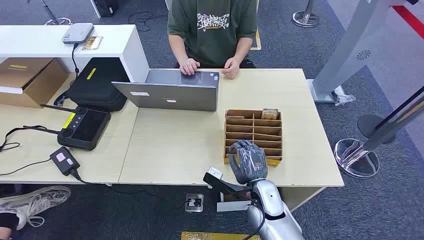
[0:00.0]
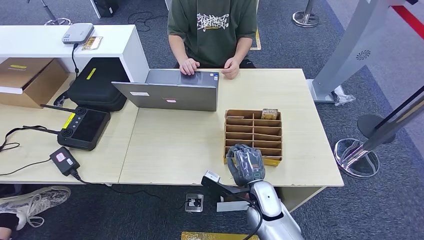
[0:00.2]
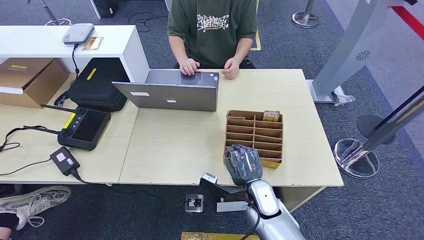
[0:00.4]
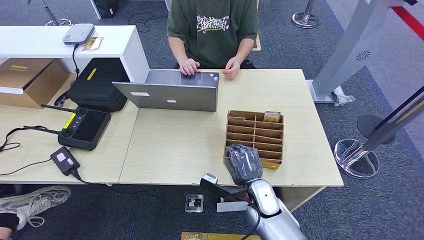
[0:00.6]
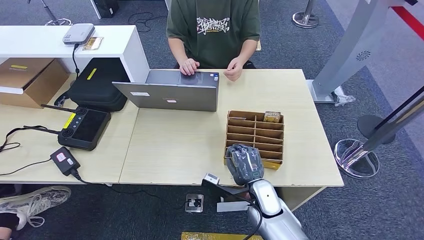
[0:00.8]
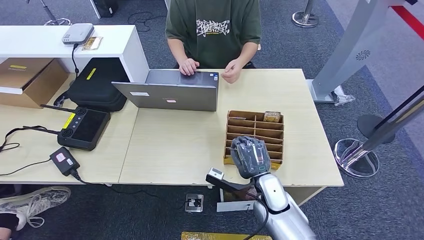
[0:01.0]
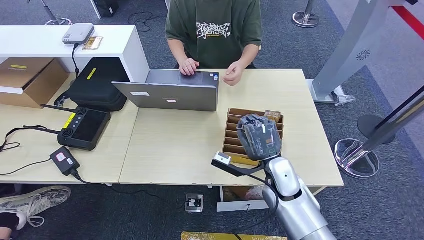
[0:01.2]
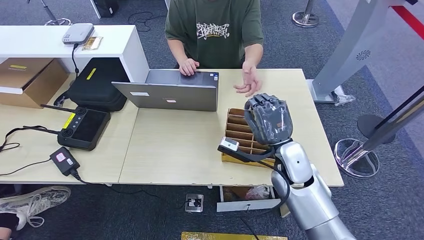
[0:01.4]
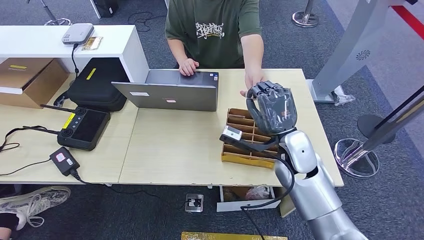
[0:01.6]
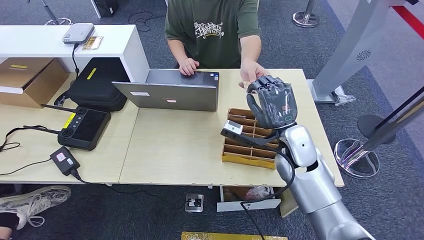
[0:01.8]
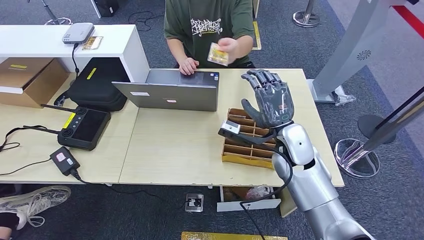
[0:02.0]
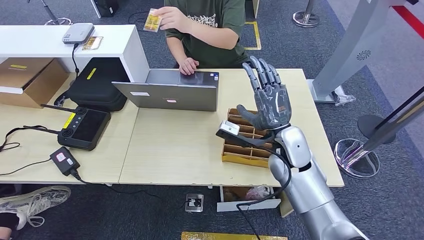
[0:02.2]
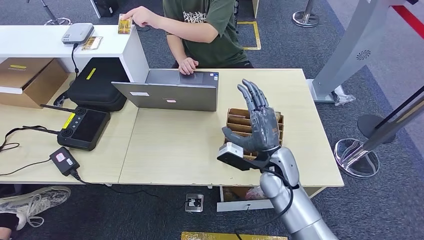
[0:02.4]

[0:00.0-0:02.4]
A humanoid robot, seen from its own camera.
Step, 0:00.0 to 0:01.2: Pick up the room card from the card holder.
Step, 0:01.6 to 0:02.4: Hand the room card to the target.
